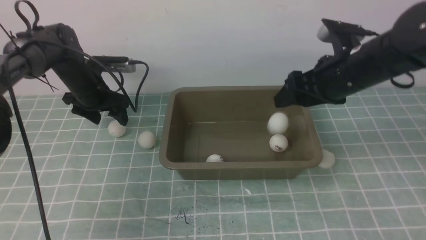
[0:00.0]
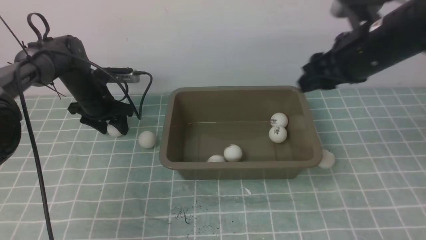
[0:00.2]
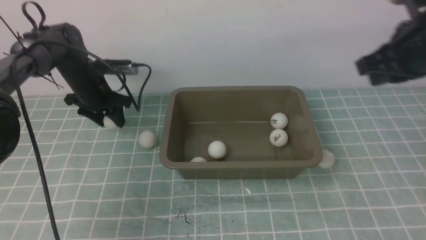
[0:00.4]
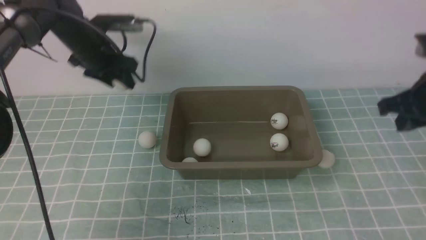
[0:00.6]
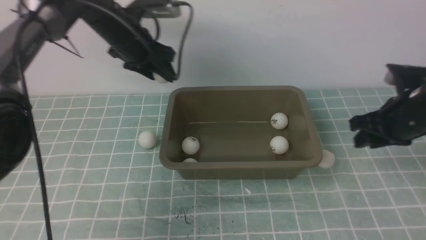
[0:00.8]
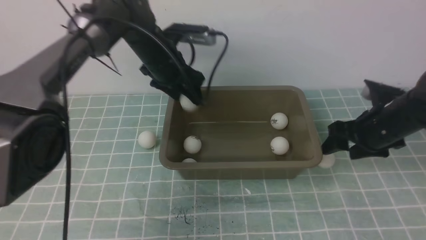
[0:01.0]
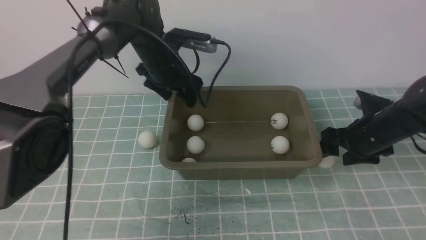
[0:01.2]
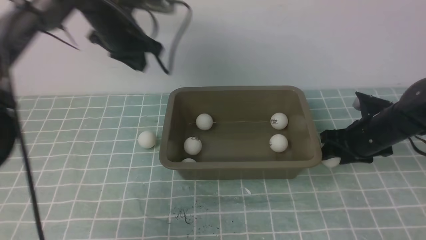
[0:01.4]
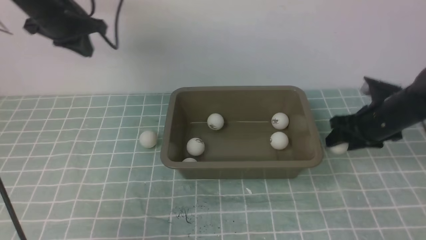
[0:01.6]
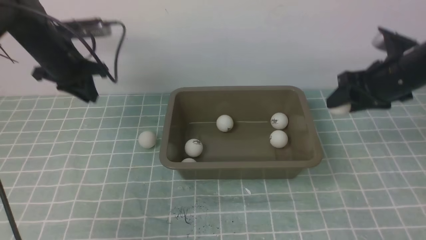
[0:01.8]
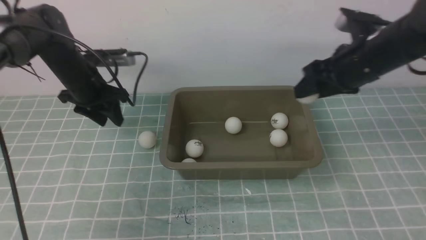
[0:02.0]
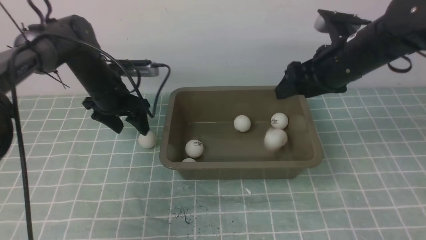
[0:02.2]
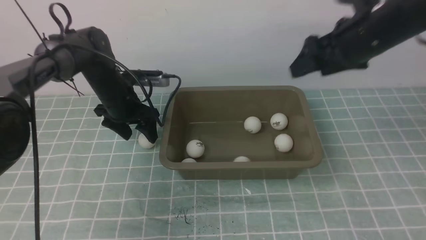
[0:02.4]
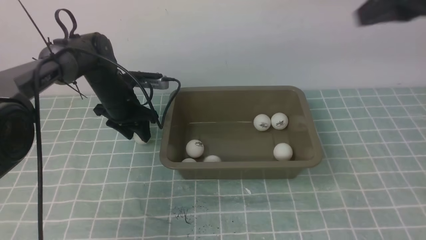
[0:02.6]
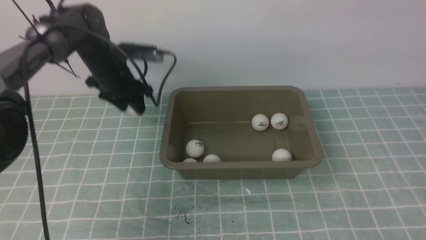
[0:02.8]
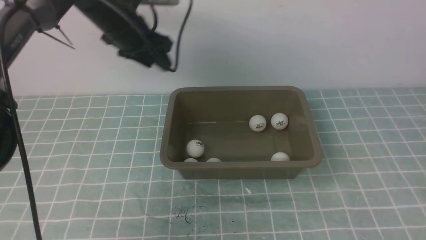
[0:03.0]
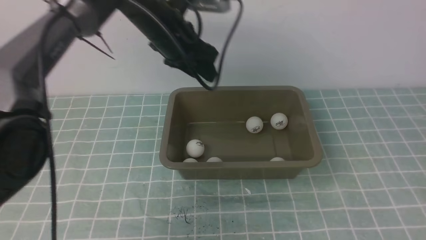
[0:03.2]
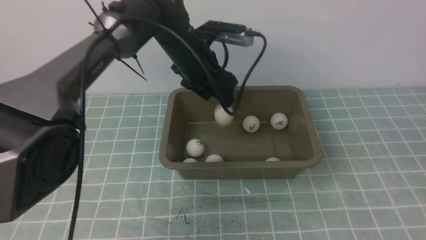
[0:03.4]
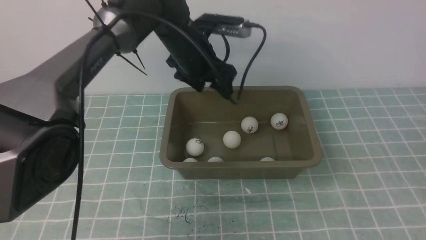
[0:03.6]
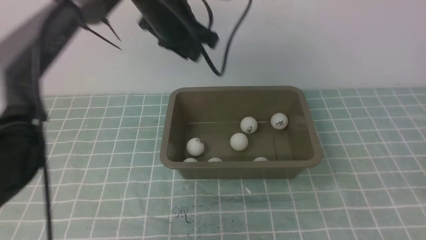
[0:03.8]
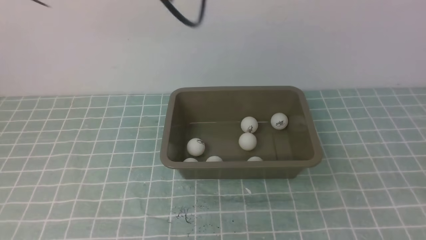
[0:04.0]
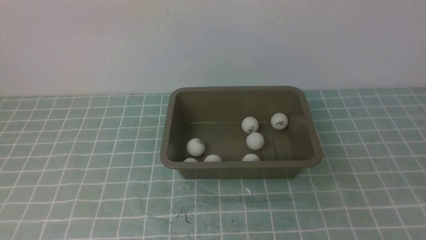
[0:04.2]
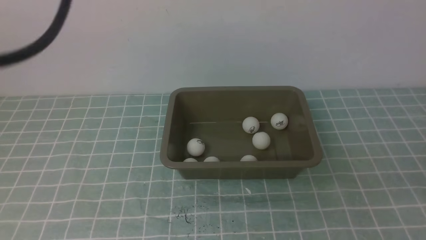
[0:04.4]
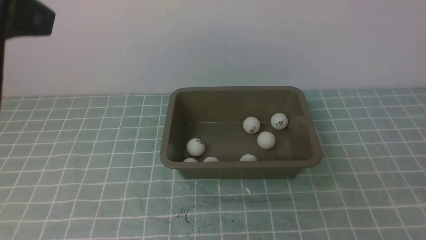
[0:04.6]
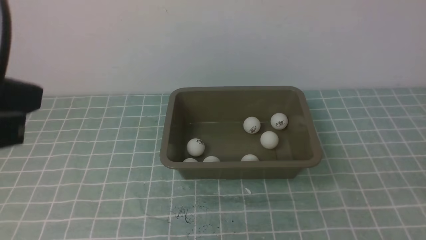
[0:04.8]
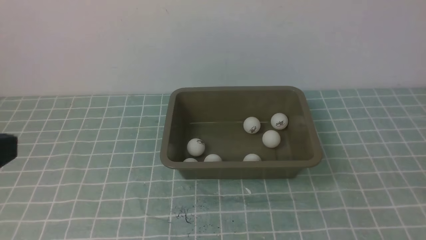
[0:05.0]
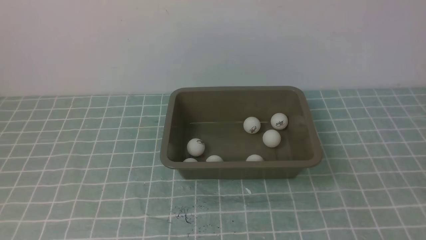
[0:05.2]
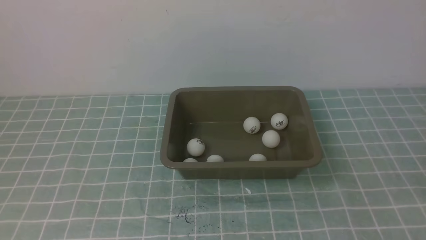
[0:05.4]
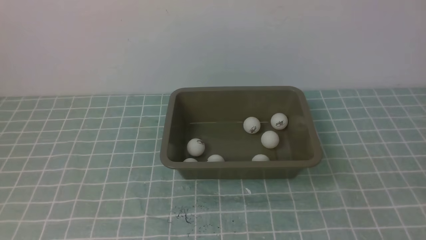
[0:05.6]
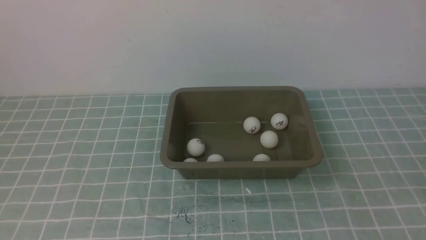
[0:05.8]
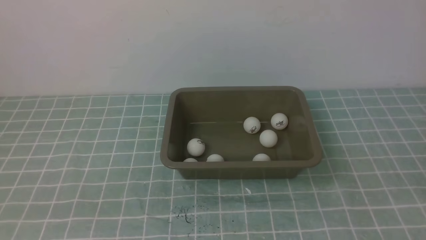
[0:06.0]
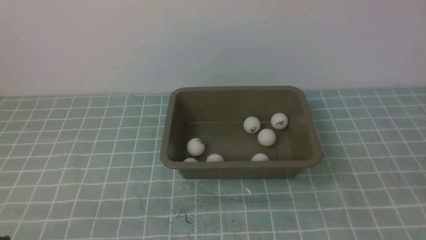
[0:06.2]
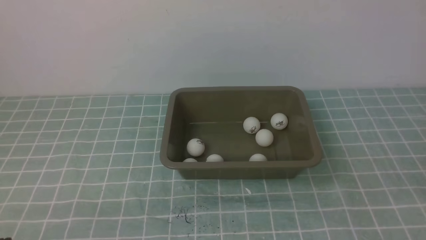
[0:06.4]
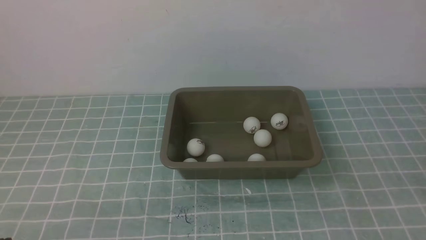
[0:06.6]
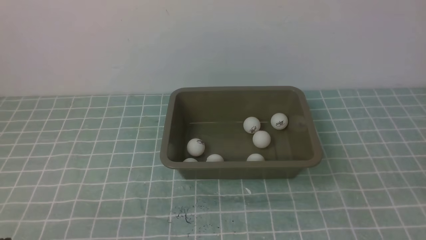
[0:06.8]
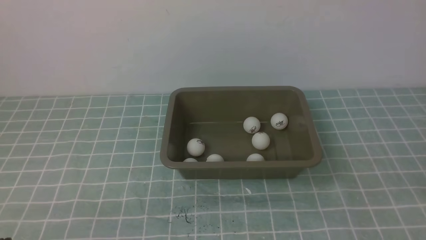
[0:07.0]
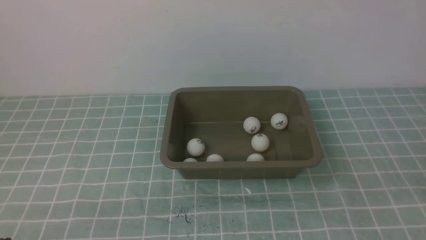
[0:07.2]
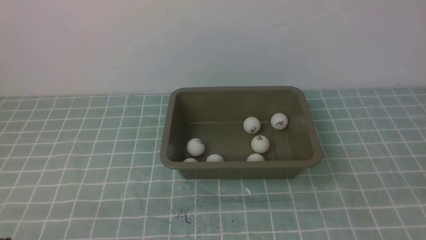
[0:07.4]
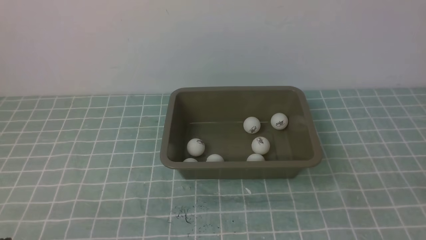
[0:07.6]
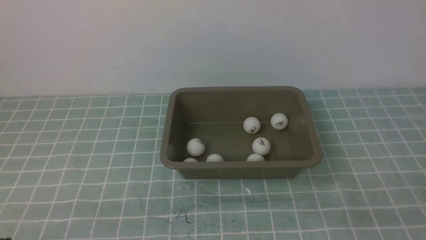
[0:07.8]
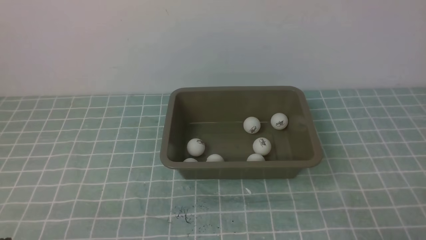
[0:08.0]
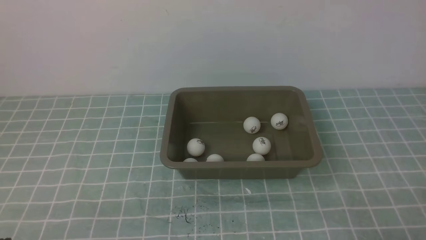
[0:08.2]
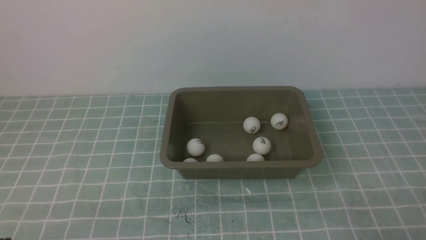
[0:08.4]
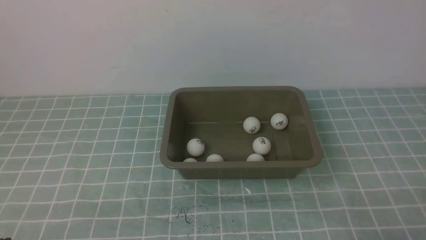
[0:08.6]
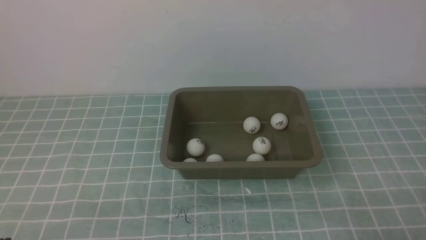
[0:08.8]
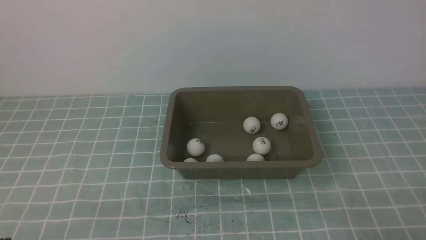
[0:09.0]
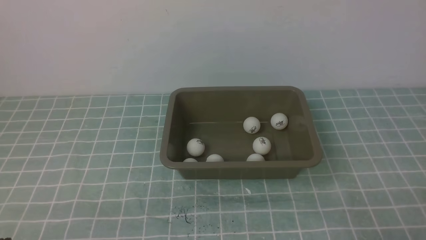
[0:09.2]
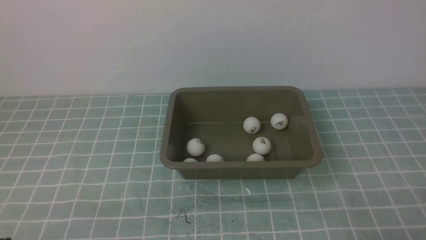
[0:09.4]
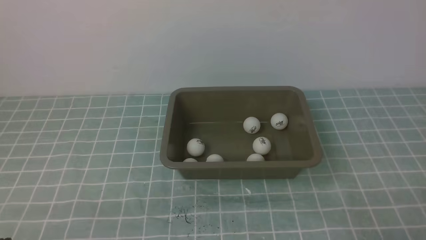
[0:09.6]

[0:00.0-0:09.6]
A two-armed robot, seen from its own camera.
Step, 0:00.2 to 0:00.4: use the left arm to clamp the table tennis ball closest to it.
Step, 0:00.6 to 0:01.0: use the left arm to put the table tennis ball into the box.
Step, 0:01.2 to 0:01.4: use the right arm to clamp the table tennis ball closest to it.
Step, 0:01.8 to 0:02.2: use the right arm to put the table tennis ball into the box.
Step, 0:02.4 to 0:02.8: use the left arm to clamp the table tennis ball closest to it.
Step, 0:03.0 to 0:03.4: use the left arm to put the table tennis ball into the box.
0:00.0 to 0:01.6: The right gripper is displaced downward and to the right by about 10 cm, and closes, then reopens. The left gripper goes approximately 15 cm upward, travels to the right and back again, some 15 cm each way, and closes up.
0:01.6 to 0:03.2: The left gripper travels to the right by roughly 15 cm, and opens its fingers; the right gripper heads backward and upward, covering approximately 35 cm, and closes its fingers.
0:03.2 to 0:04.8: The right gripper heads backward and downward, covering approximately 10 cm, while the left gripper goes roughly 35 cm backward, and closes.
0:04.8 to 0:06.4: The left gripper goes some 25 cm downward.
0:08.0 to 0:09.6: Neither gripper changes place.
